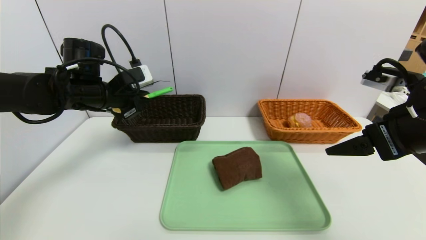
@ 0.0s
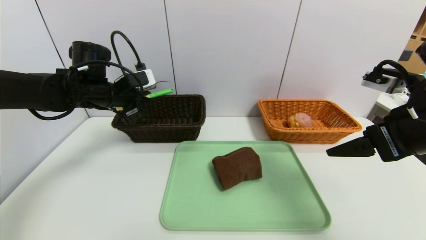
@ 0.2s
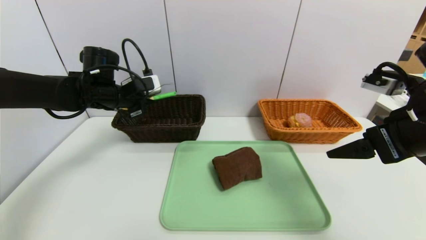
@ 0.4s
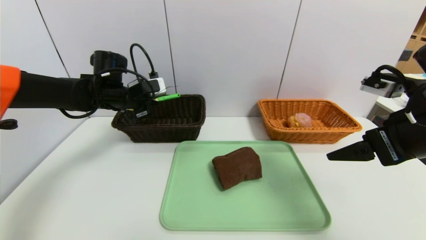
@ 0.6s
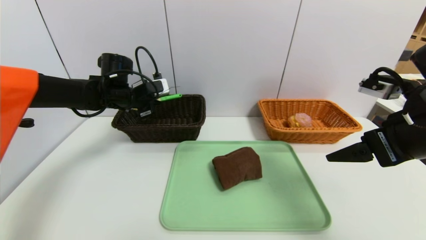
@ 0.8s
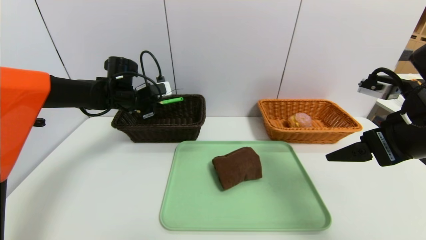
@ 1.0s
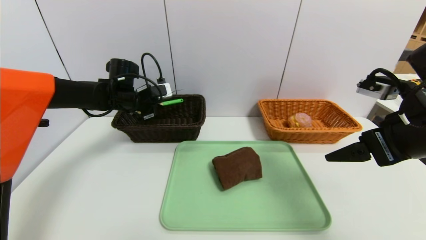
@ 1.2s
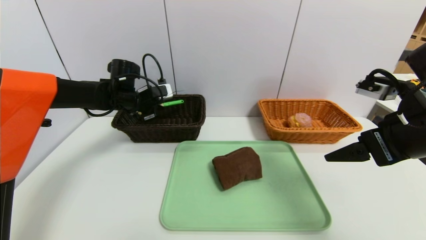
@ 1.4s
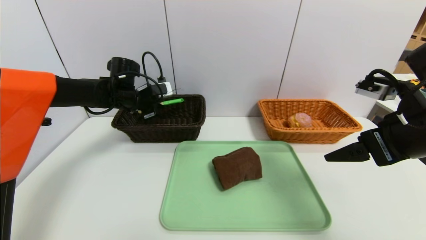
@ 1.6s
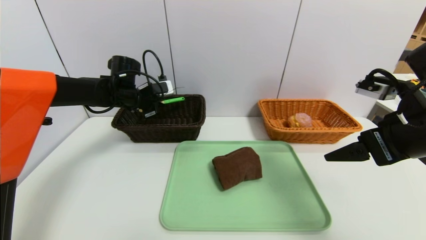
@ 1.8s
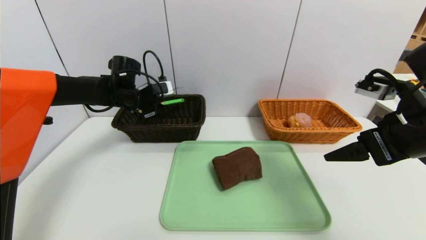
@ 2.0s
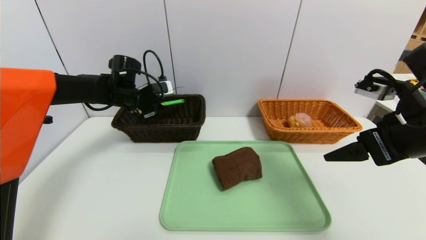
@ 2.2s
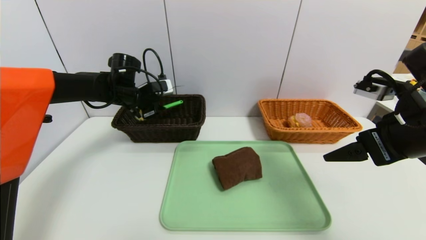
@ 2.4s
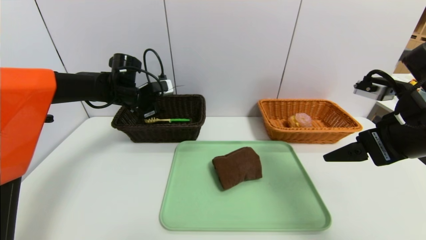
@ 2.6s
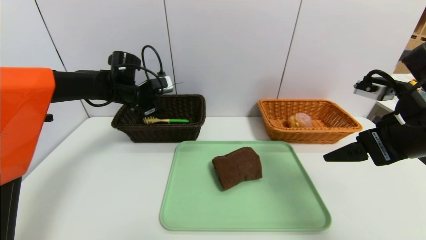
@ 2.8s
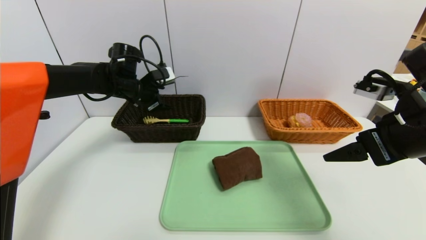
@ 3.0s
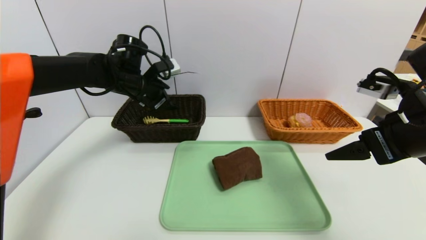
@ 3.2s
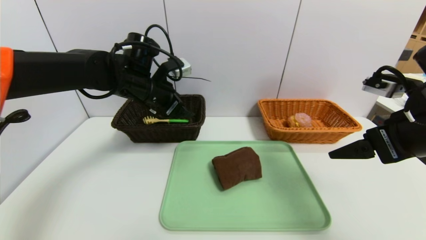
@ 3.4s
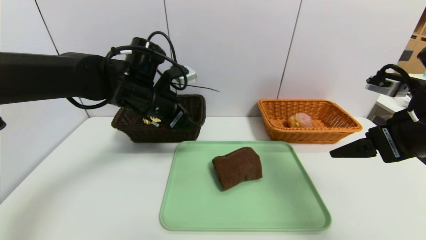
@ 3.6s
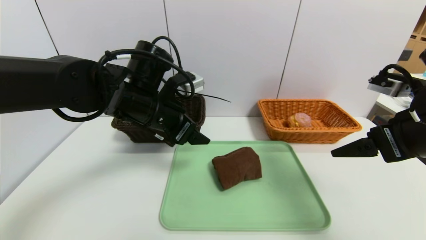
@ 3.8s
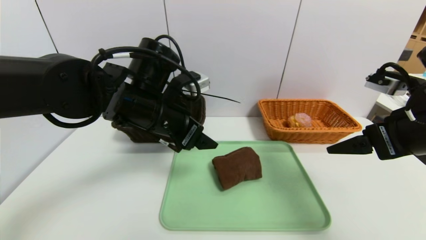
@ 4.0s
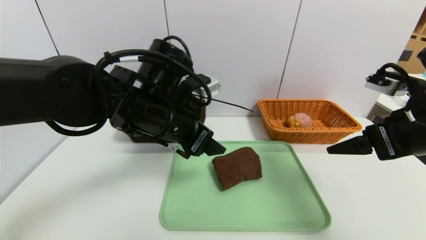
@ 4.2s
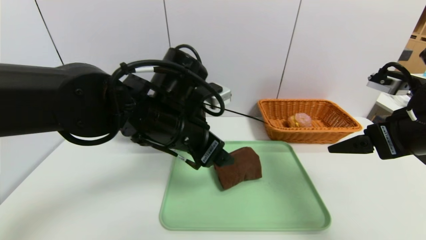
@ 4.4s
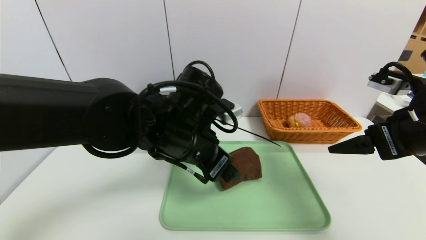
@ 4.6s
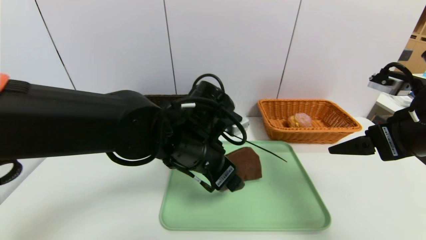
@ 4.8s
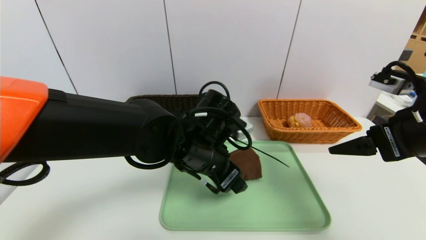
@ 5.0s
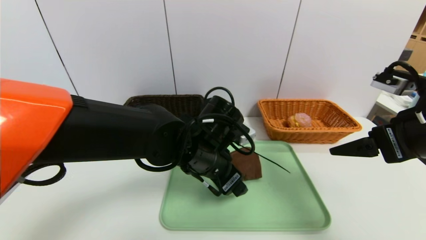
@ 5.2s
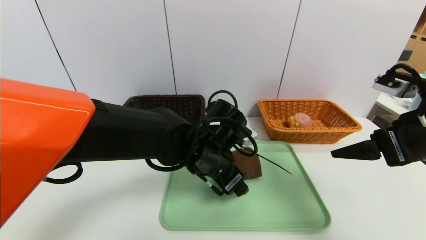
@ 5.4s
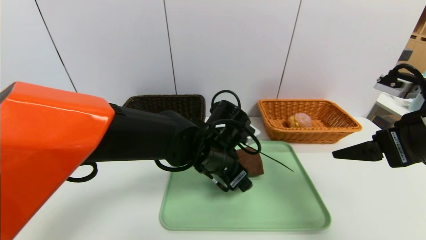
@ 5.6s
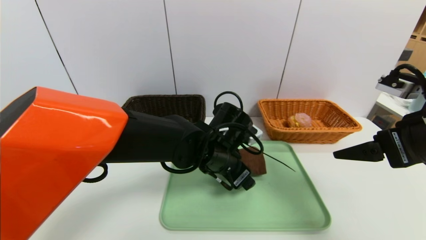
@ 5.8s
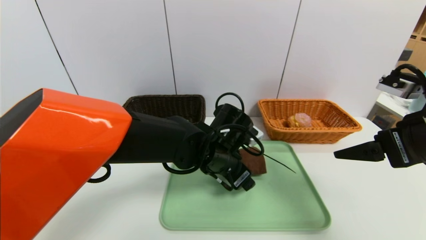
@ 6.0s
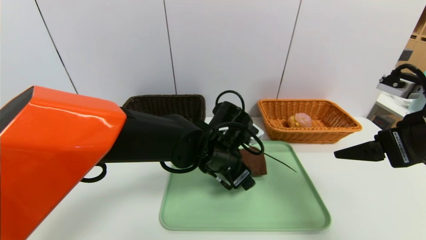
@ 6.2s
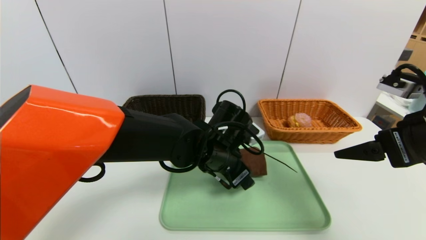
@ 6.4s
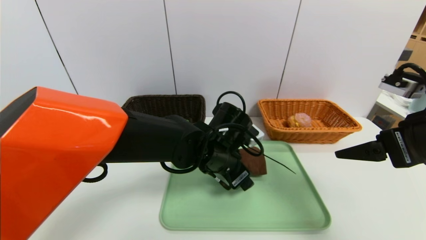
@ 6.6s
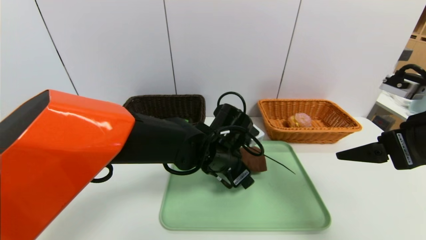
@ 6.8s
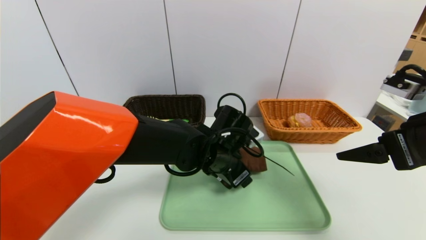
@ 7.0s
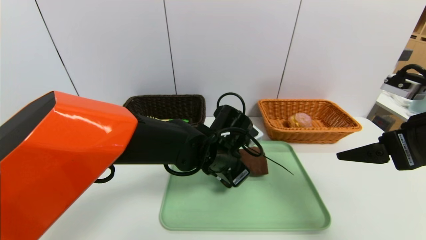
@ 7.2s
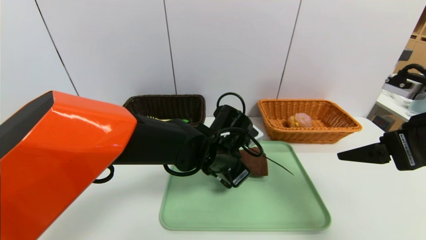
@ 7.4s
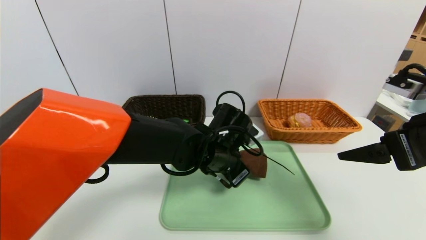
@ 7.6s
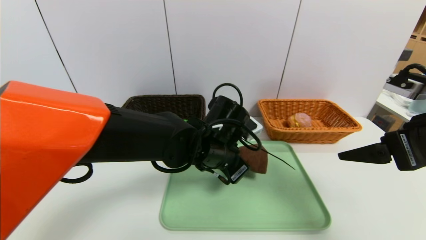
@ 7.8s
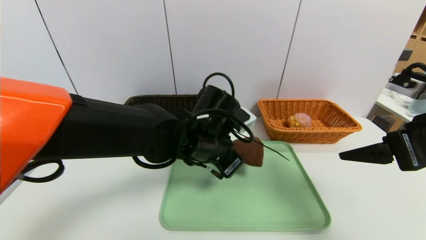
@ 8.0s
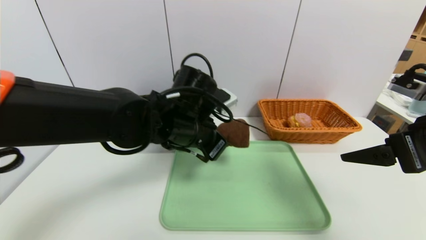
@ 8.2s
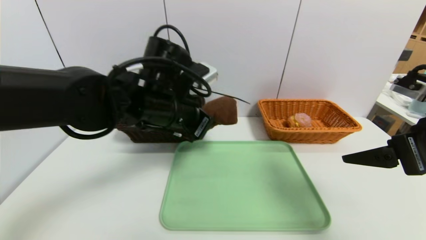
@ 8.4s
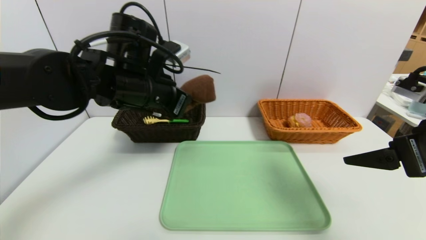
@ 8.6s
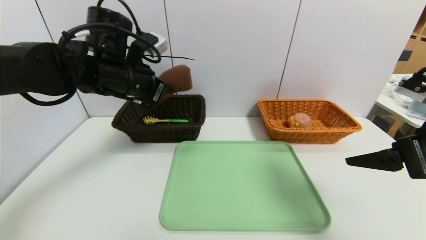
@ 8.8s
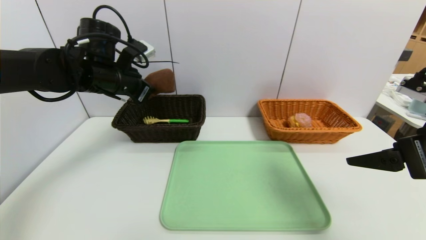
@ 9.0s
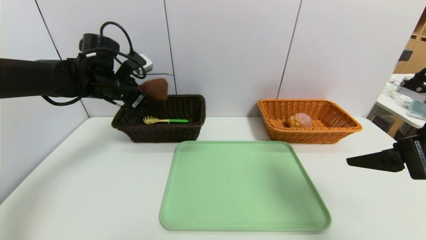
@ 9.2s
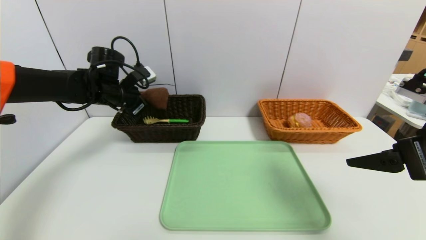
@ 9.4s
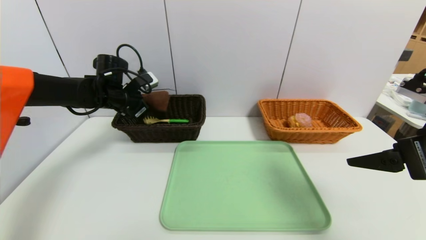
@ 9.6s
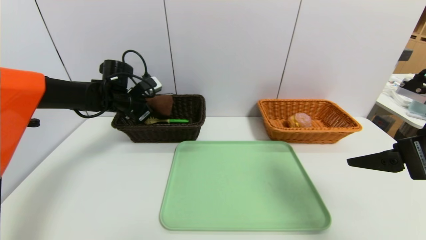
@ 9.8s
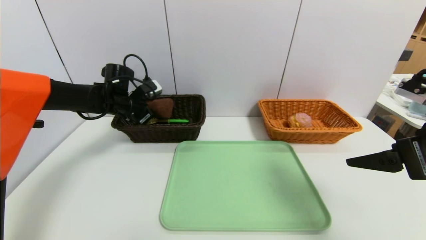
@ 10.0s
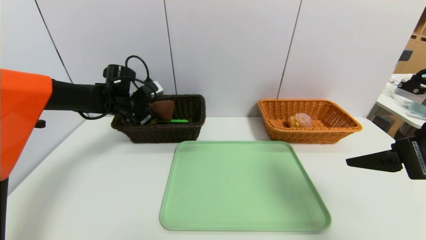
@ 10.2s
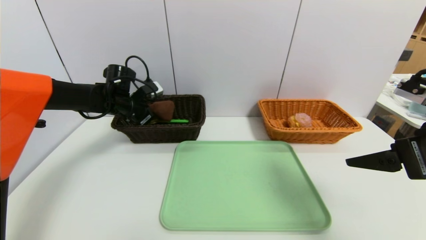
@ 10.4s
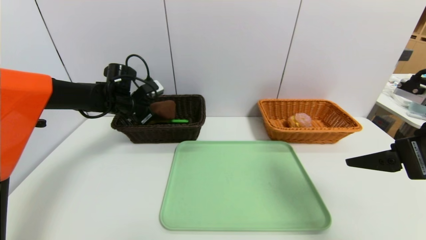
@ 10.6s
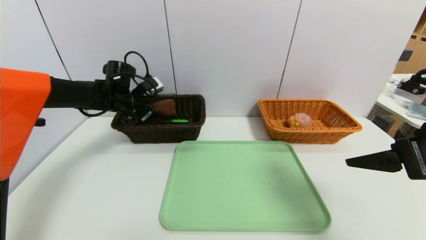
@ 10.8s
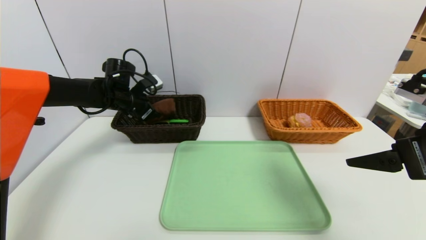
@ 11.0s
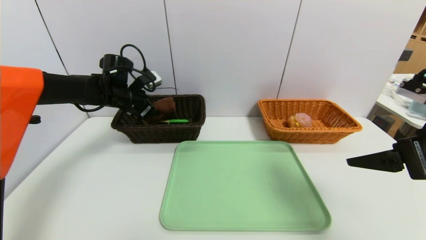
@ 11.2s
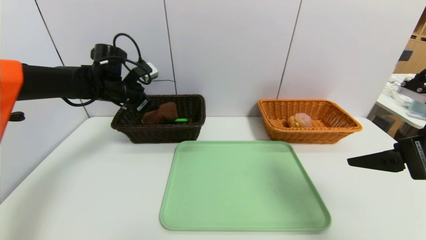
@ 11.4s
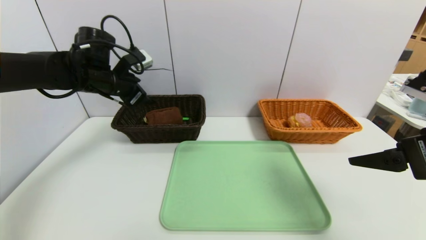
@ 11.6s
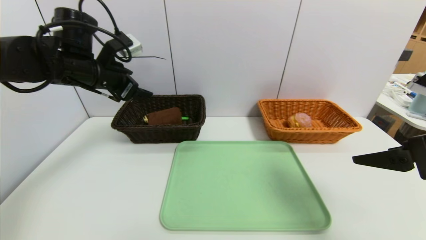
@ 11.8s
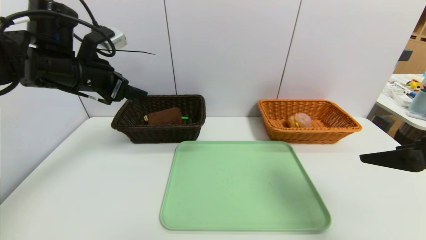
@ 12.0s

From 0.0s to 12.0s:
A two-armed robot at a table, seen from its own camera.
Task of the whole recording: place the food in the right basket with the right gripper, and place the non food items in the left basket with the left gripper.
Step, from 0.0s to 3.0s: Grasp the back scratcher and put it in the left basket.
Step, from 3.2s to 11.4s: Grasp the brown towel and put it in the left basket.
From 0.0s to 1.6s: The left gripper heads forward, covering approximately 10 cm.
From 1.6s to 3.0s: The left gripper opens its fingers.
From 3.0s to 4.4s: The left gripper travels backward and to the right by about 25 cm.
From 4.4s to 6.0s: The left gripper moves downward and to the right, about 10 cm.
From 6.0s to 7.6s: The left gripper closes its fingers.
From 7.6s to 9.0s: The left gripper heads to the left and upward, covering some 25 cm.
From 9.0s to 10.4s: The left gripper is displaced downward and forward by about 10 cm.
From 10.4s to 12.0s: The left gripper is displaced backward and upward by some 20 cm, and opens its fingers.

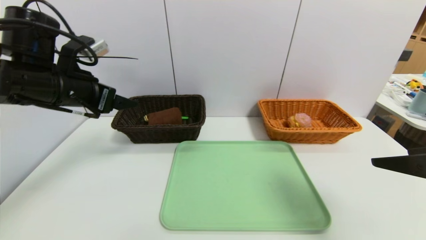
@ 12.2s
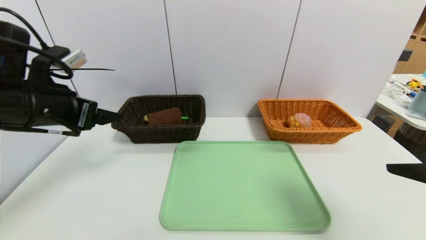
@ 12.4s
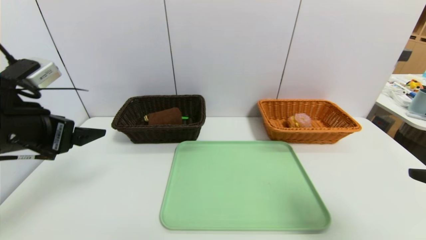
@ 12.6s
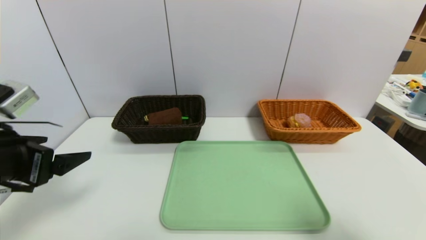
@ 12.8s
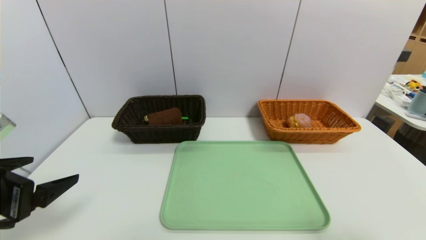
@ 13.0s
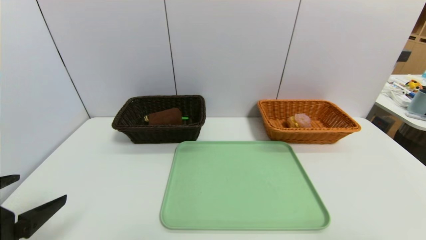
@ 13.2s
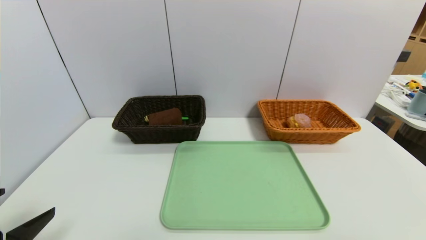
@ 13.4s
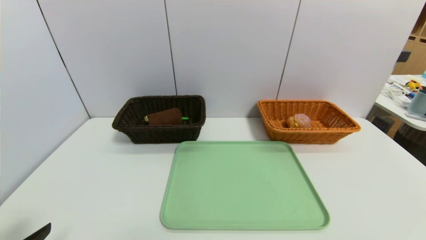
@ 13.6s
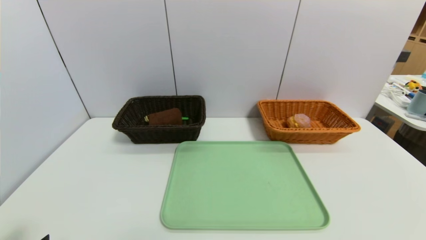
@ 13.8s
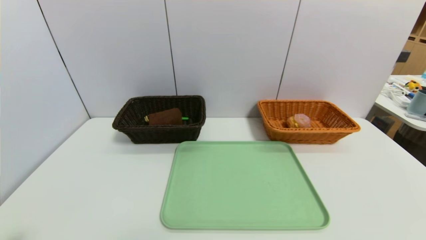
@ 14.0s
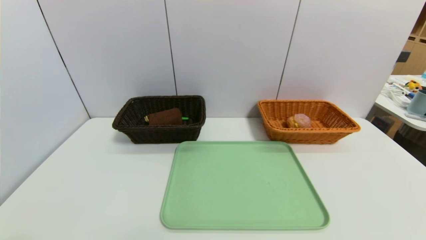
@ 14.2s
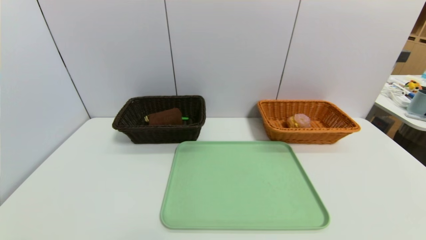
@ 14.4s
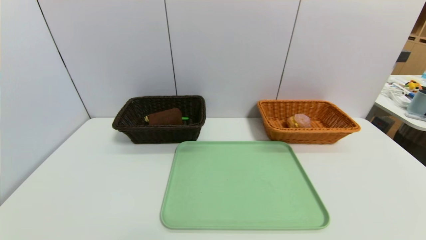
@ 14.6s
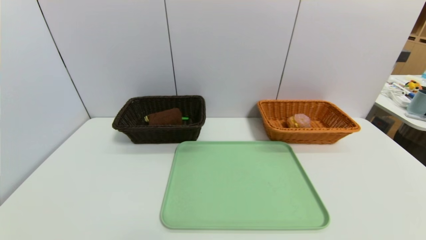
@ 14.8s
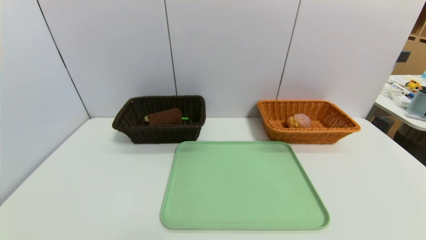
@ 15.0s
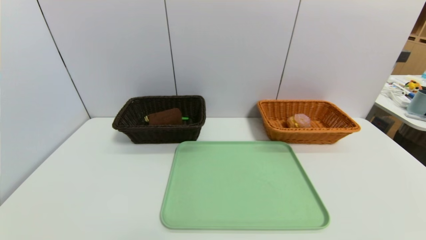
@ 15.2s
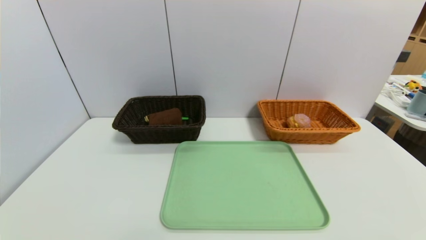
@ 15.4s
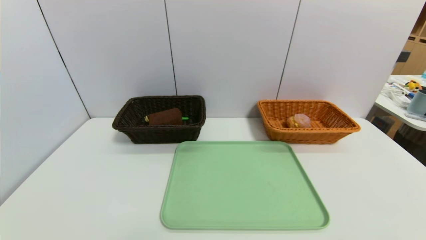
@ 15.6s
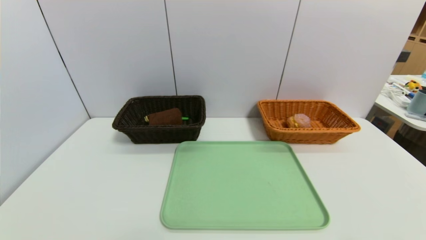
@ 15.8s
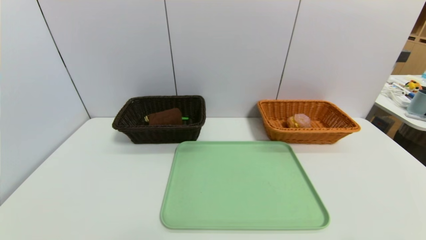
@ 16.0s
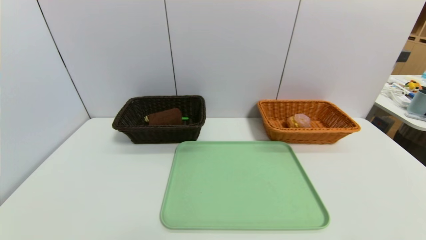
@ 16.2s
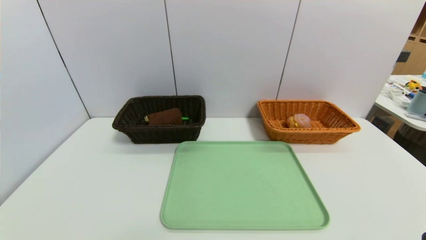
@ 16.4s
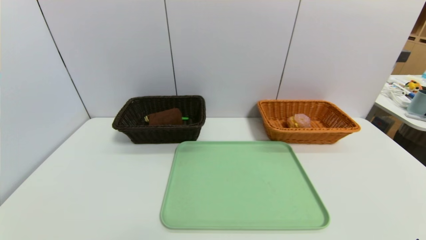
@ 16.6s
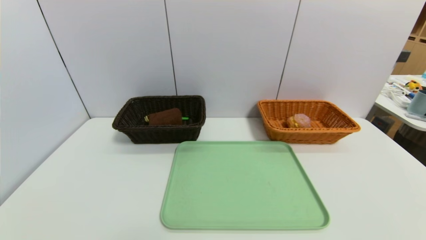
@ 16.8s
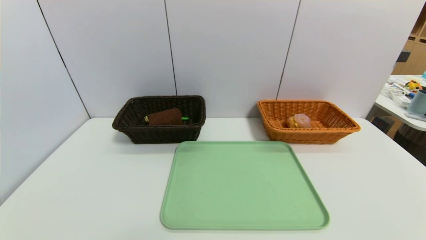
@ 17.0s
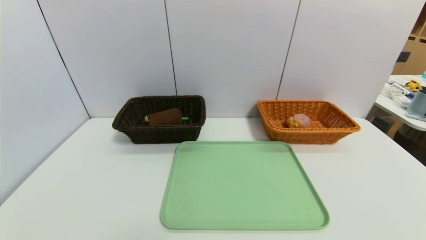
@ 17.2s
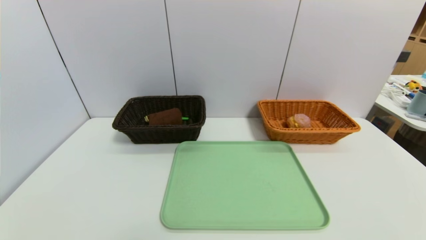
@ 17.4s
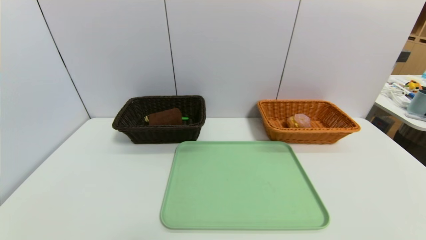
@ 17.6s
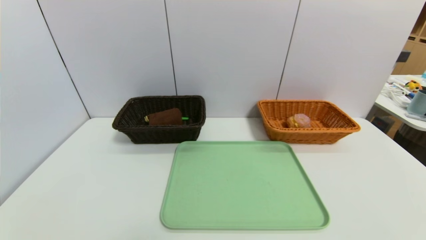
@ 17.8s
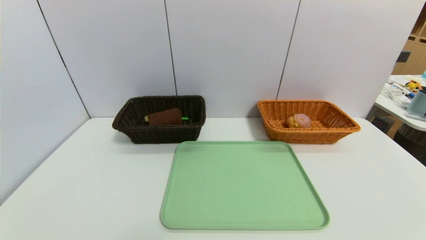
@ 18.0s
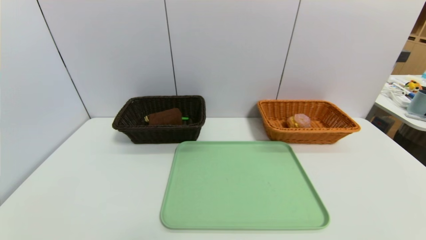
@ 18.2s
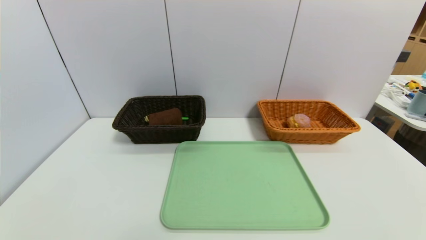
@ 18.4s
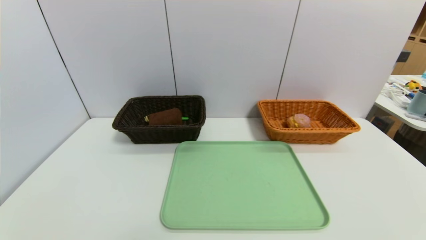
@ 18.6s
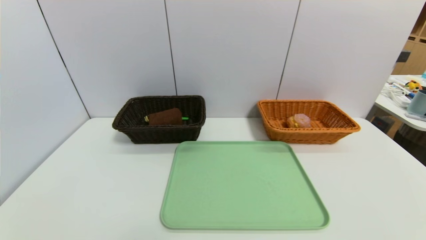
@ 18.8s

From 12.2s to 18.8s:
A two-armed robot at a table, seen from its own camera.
Task of the whole recording: place the food in the right basket with the right gripper, and place the non food items in the left basket with the left gripper.
From 12.2s to 13.8s: The left gripper shifts about 30 cm backward and downward, while the right gripper travels backward by some 15 cm.
